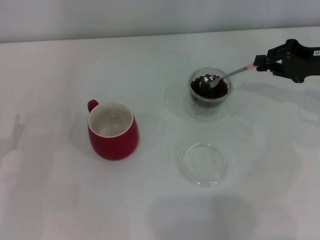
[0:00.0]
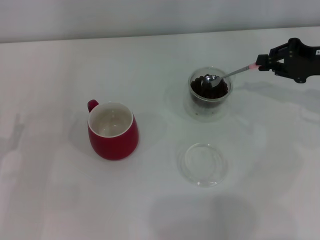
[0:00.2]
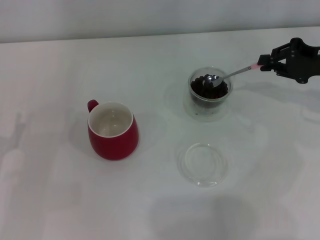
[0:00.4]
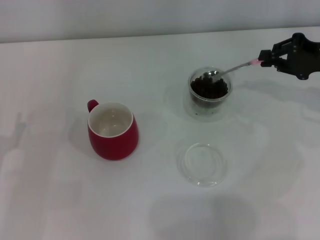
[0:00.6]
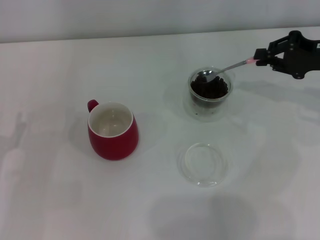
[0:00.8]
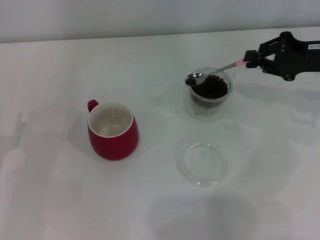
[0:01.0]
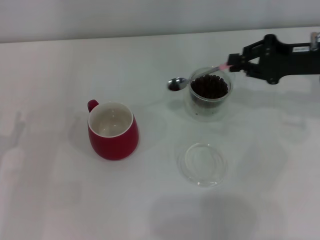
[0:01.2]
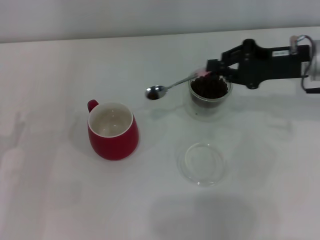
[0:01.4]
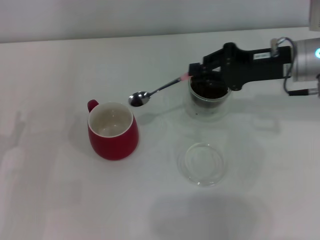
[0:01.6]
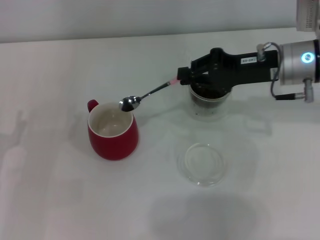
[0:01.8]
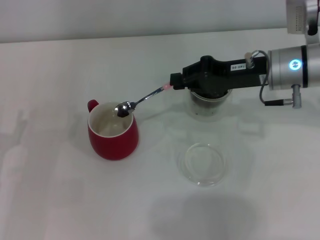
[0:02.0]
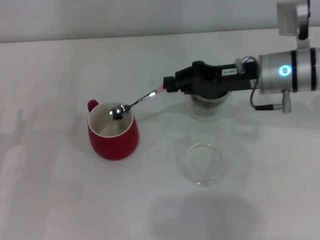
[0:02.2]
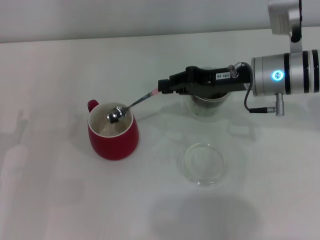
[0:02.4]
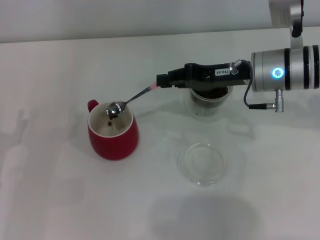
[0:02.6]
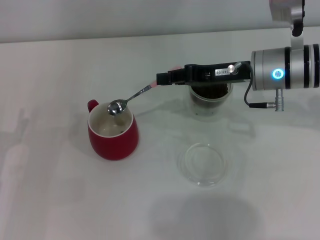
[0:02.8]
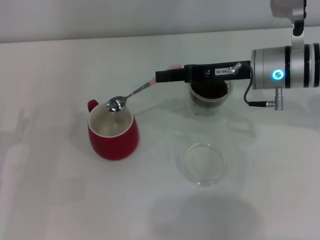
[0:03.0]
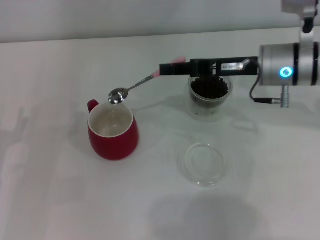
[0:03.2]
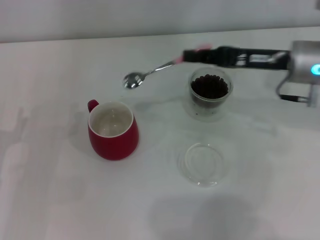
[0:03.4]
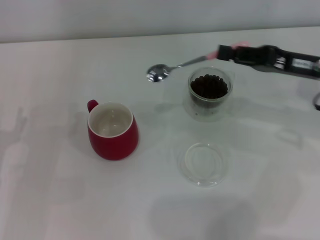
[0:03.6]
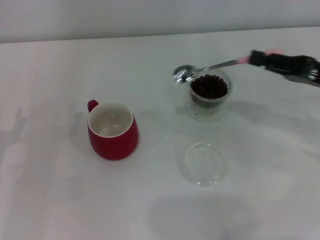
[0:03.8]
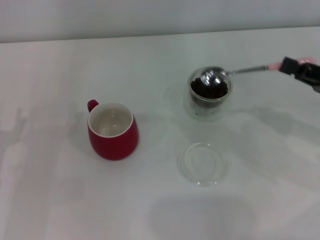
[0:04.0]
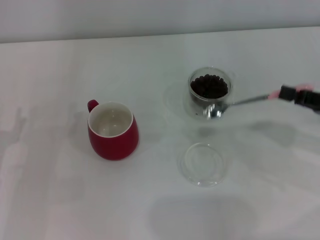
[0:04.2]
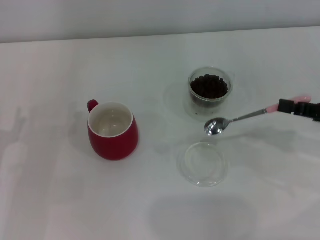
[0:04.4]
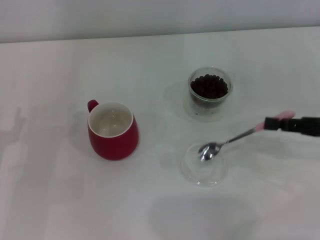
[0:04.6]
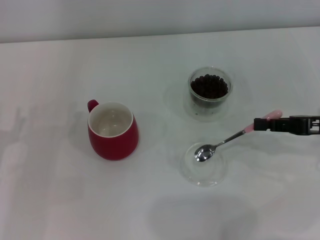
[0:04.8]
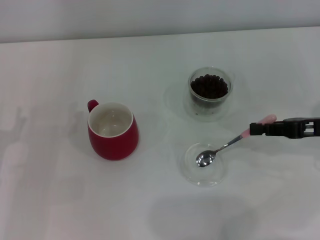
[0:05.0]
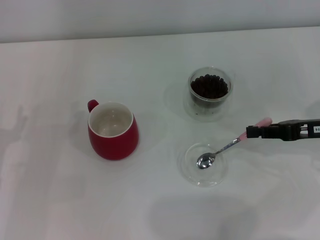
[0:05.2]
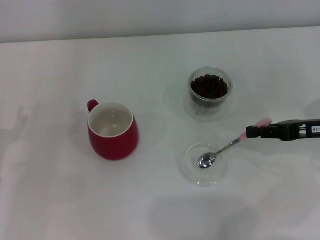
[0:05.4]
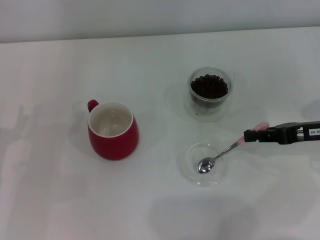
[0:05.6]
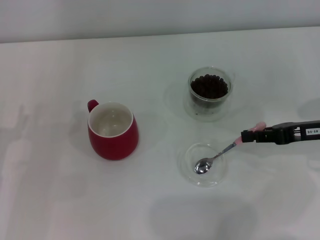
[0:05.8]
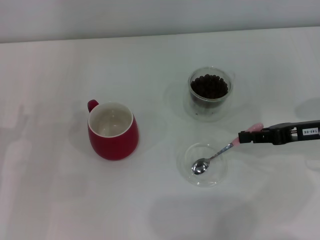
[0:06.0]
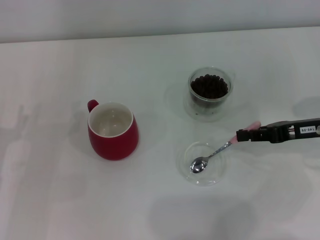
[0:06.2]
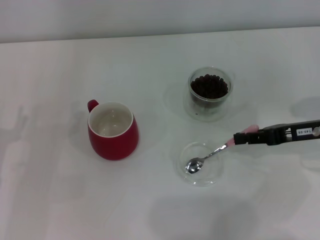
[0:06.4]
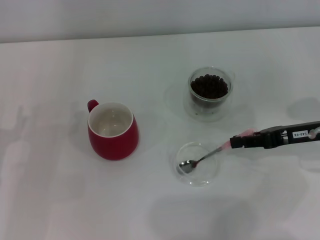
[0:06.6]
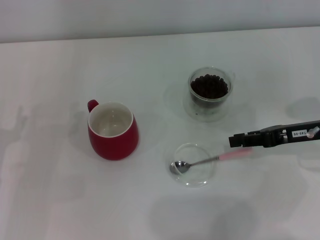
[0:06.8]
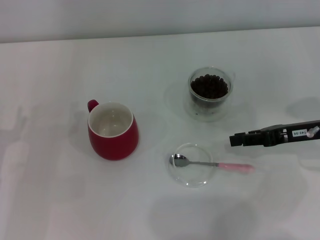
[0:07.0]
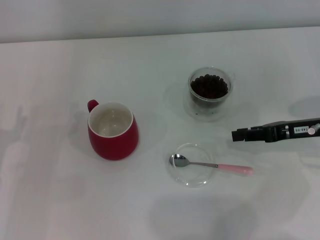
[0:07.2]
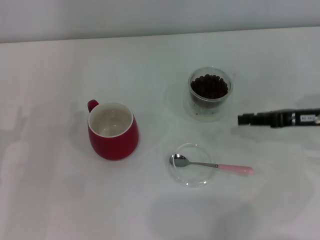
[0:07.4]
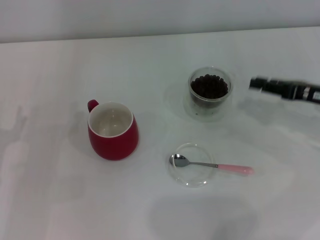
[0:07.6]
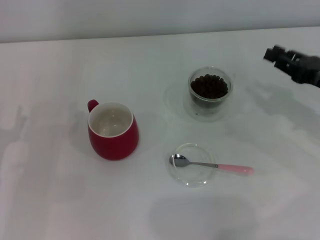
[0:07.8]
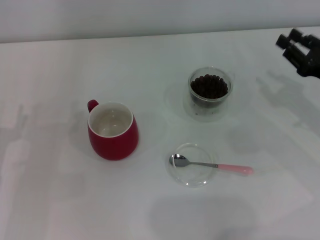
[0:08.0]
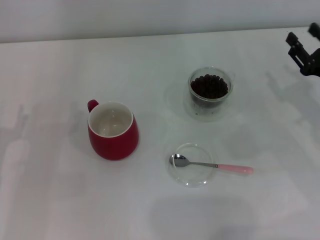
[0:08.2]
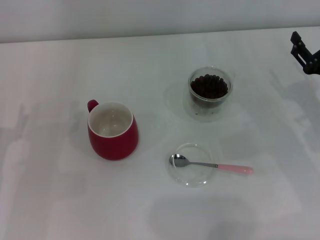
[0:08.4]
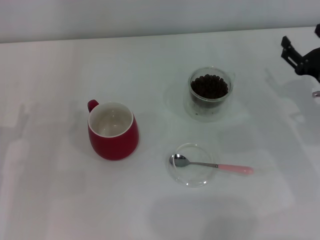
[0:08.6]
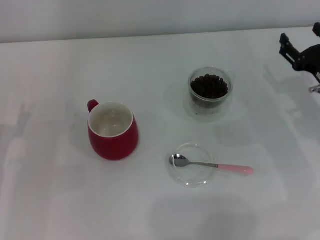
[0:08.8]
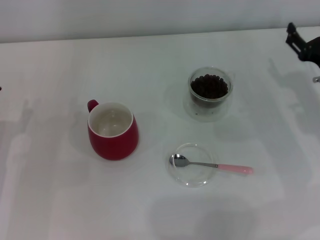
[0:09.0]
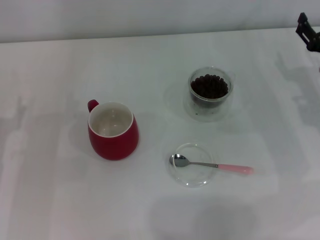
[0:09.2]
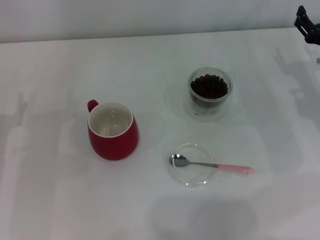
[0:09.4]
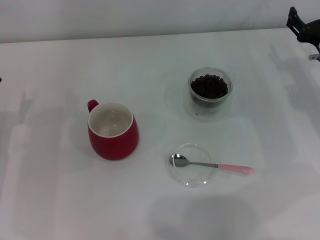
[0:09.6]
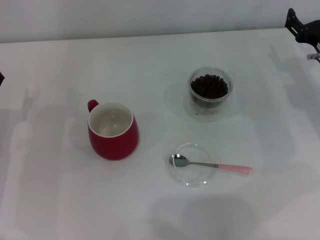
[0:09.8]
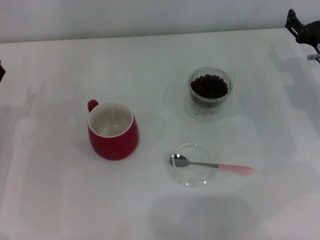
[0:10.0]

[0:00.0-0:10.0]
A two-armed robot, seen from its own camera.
Task of the whole recording: Use a pink spoon to take out the coffee beans from the glass and pour them into the red cup.
Step, 0:00.0 to 0:02.6: Scoop a spoonful of beans into the cup with the right gripper.
Step, 0:03.0 to 0:06.6: Place the spoon back in its original place with the right gripper.
0:00.0 to 0:01.4: The right gripper shifts approximately 5 cm to the left.
0:01.4 to 0:02.8: The right gripper moves to the left, some 10 cm.
0:02.8 to 0:04.2: The right gripper is displaced to the right and backward by approximately 20 cm.
0:04.2 to 0:05.8: The right gripper ends up approximately 5 cm from where it was.
0:05.8 to 0:07.2: There are only small adjustments of the grippers.
0:07.2 to 0:08.6: The right gripper opens.
0:08.6 to 0:10.0: The right gripper heads forward, covering roughly 5 cm.
